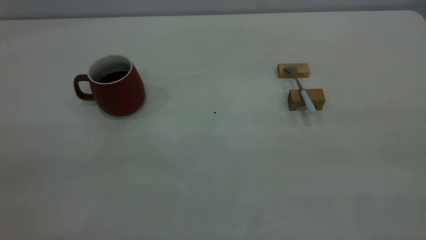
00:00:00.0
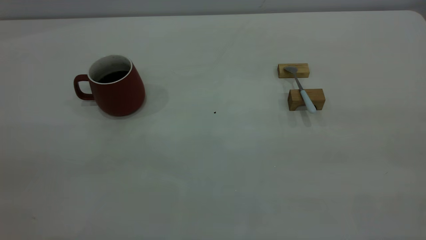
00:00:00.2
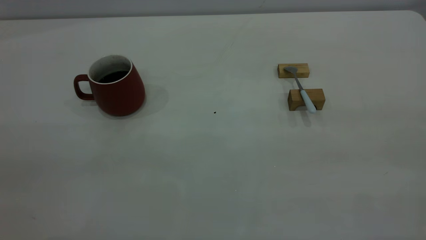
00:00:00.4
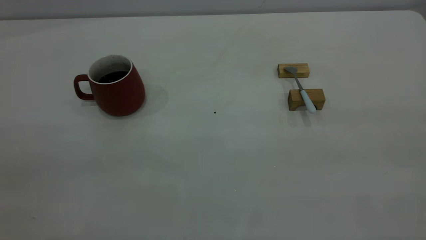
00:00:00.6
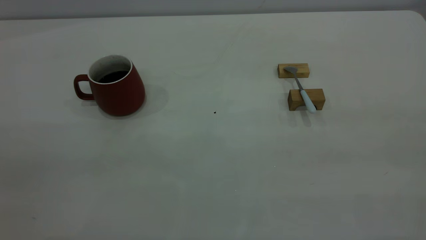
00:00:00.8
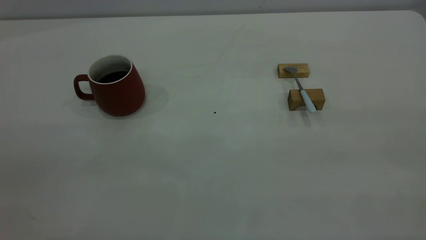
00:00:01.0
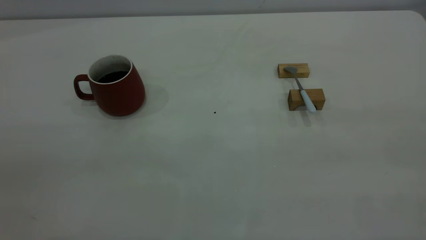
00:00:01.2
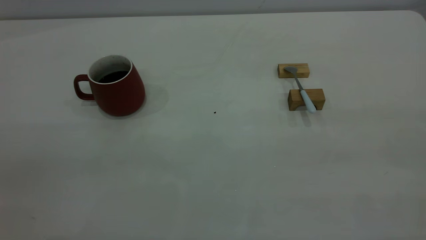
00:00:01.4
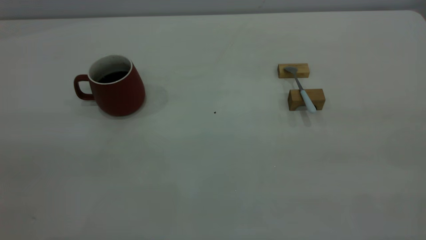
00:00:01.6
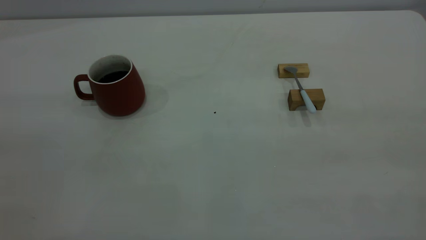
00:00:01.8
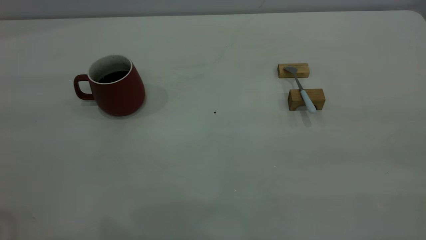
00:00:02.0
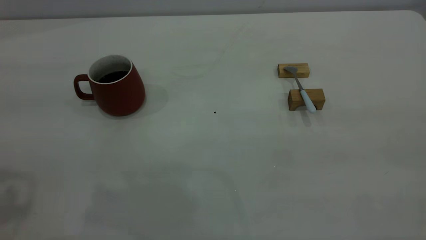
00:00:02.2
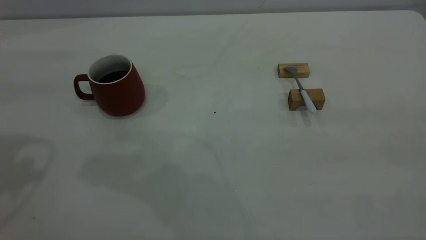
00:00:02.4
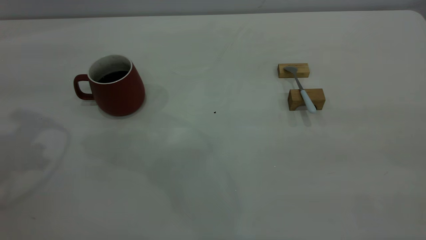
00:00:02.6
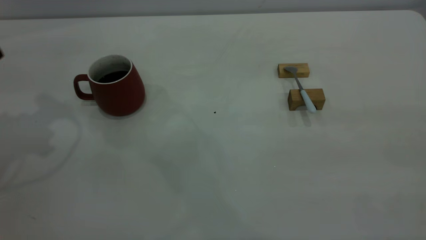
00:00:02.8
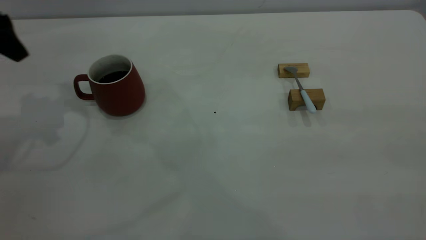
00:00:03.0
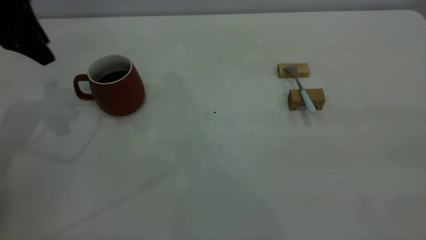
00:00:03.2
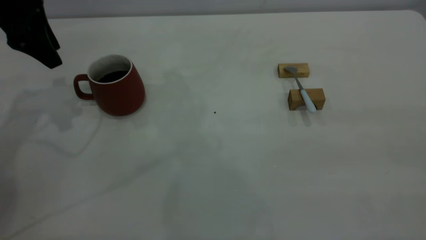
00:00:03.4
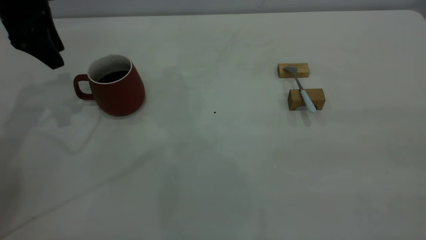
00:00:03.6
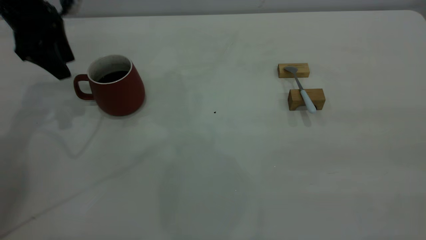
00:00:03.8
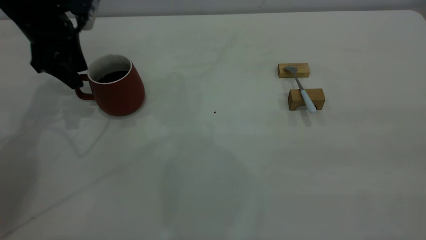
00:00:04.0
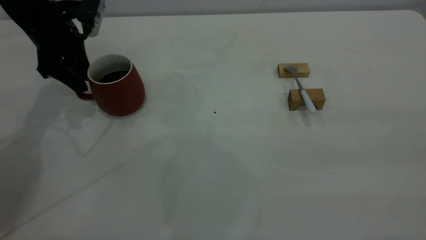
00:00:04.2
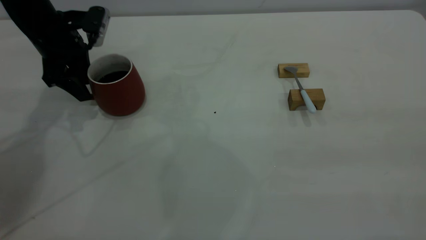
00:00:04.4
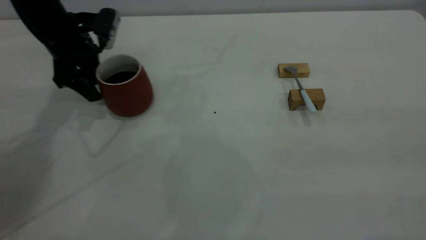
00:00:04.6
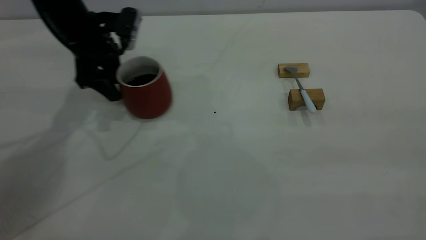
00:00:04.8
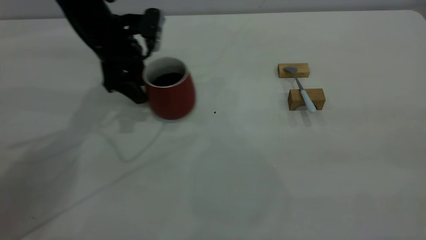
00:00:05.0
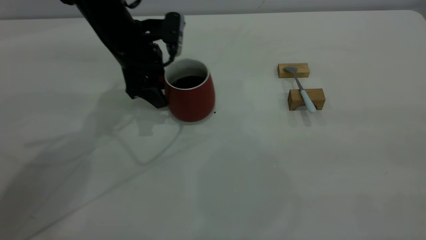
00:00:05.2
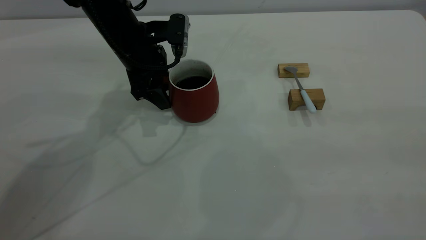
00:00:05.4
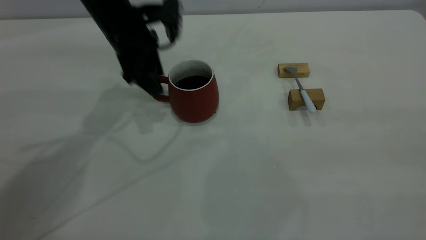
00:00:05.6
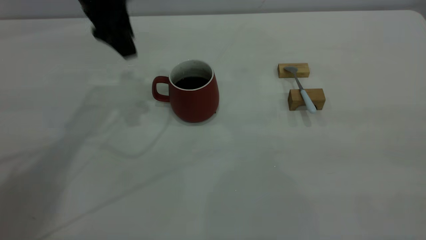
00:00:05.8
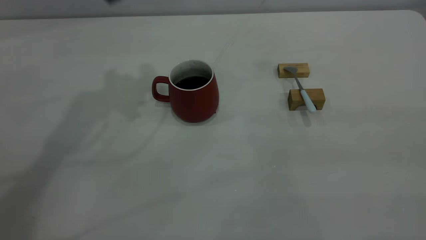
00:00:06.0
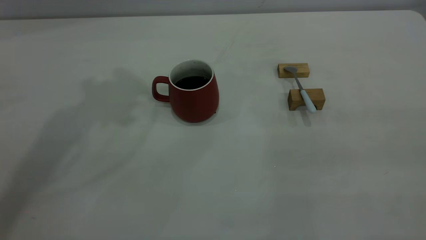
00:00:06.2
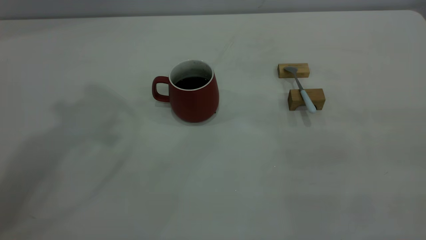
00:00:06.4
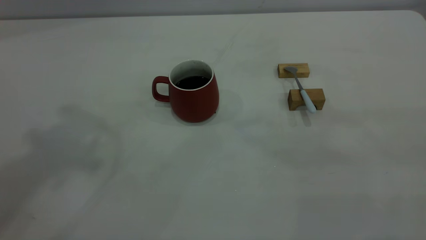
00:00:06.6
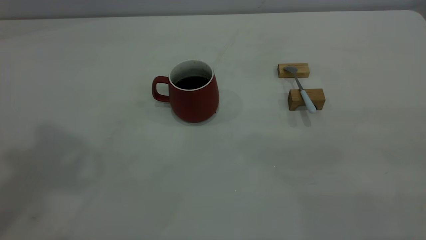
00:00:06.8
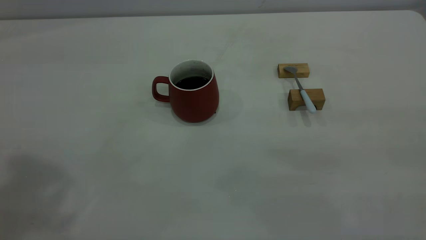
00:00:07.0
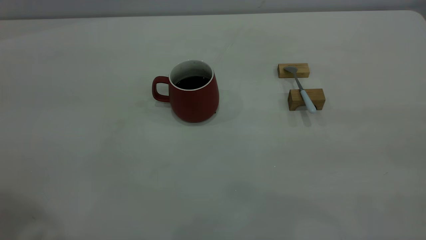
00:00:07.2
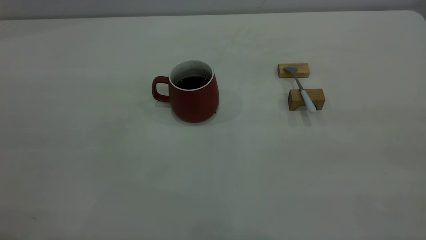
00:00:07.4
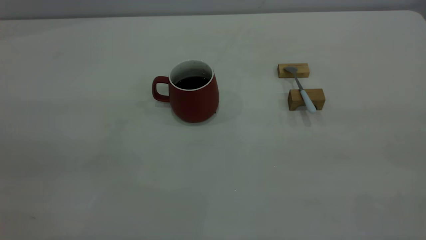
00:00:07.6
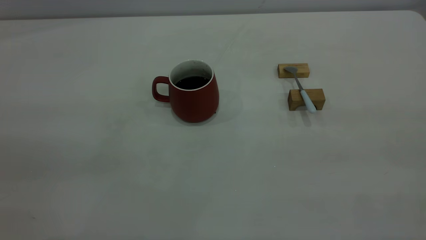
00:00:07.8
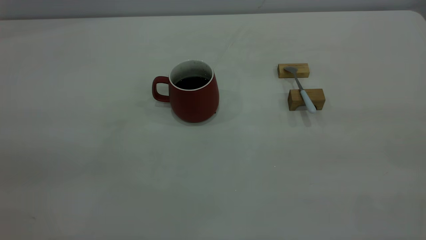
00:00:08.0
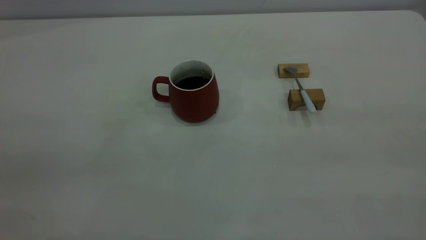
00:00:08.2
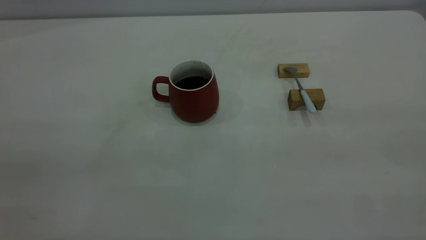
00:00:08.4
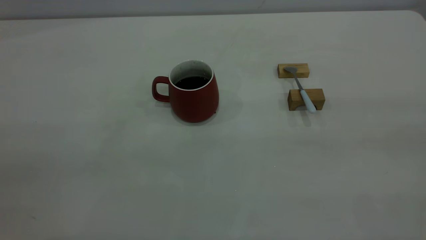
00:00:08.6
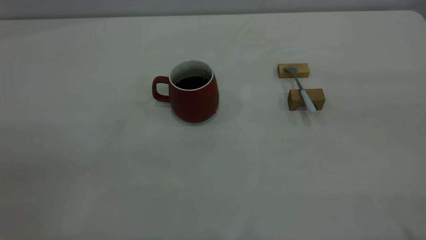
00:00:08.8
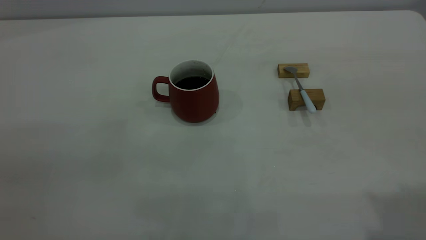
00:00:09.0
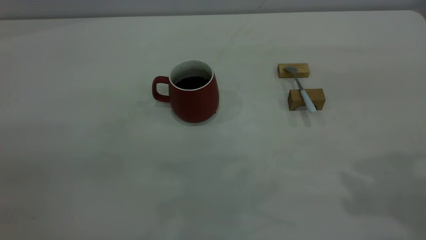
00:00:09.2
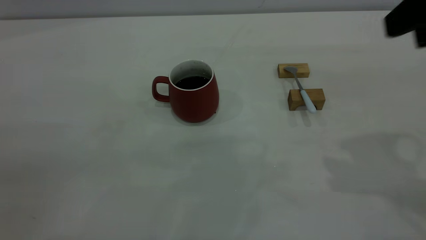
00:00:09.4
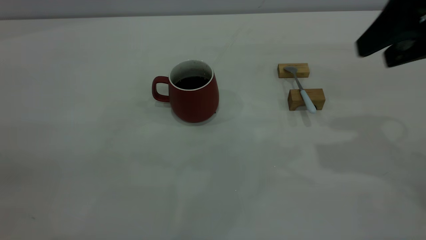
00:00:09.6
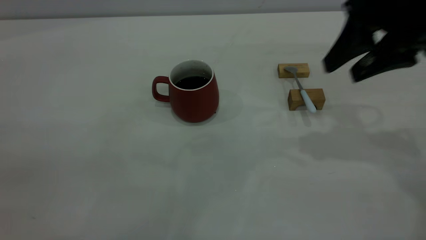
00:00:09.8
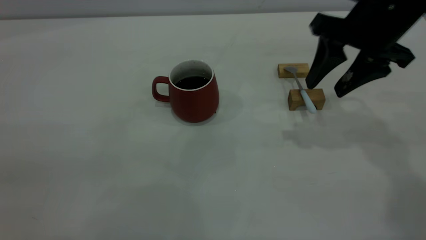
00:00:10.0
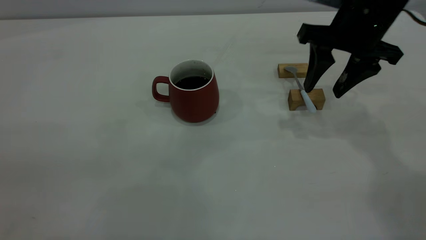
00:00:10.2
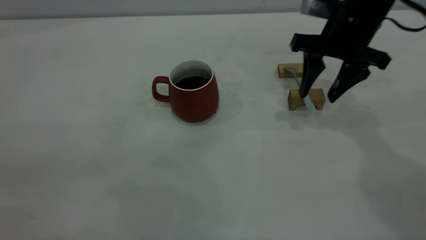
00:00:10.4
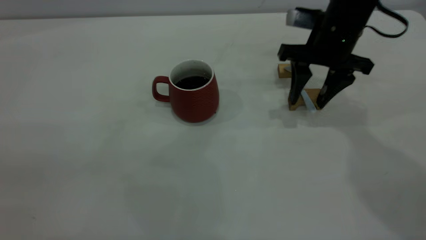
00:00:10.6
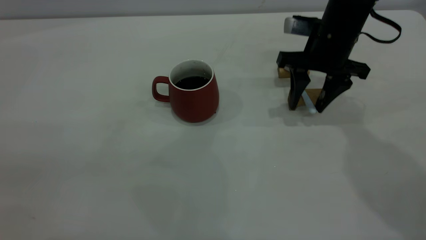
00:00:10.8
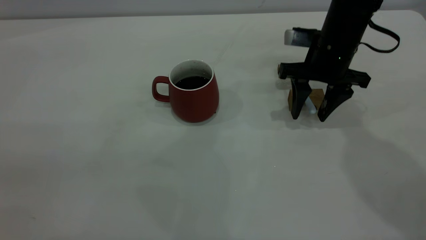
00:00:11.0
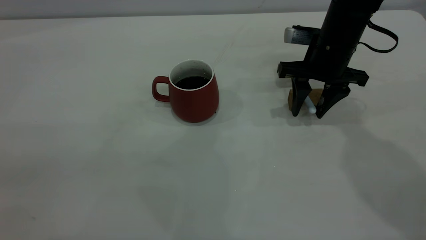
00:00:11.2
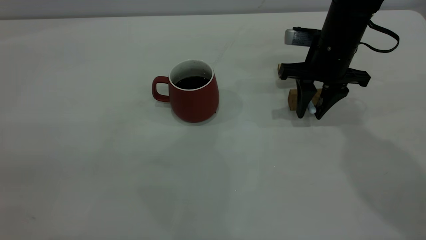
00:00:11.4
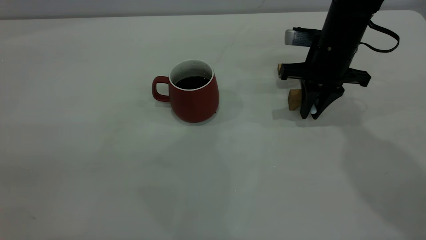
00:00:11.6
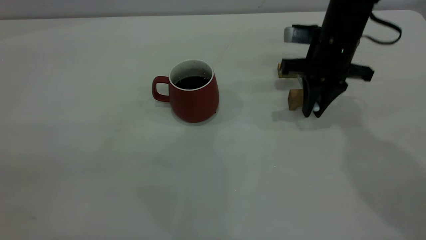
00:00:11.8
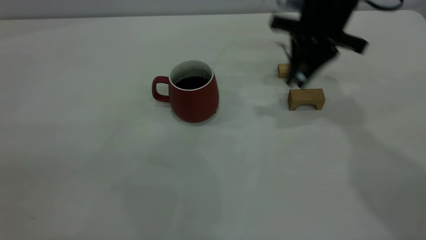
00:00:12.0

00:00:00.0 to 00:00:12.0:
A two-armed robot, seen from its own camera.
Step, 00:00:00.0 to 00:00:05.6: Move the cup with coffee to the center of view.
Step, 00:00:05.8 to 00:00:11.8: Pick up the spoon.
00:00:01.6 to 00:00:03.0: The left gripper heads forward, covering about 35 cm.
00:00:03.0 to 00:00:04.4: The left gripper travels downward and forward by approximately 10 cm.
00:00:04.4 to 00:00:06.0: The left gripper travels upward and to the right by about 20 cm.
00:00:09.0 to 00:00:10.4: The right gripper goes some 35 cm forward and downward.
00:00:10.4 to 00:00:12.0: The right gripper changes place by approximately 5 cm, and closes its fingers.

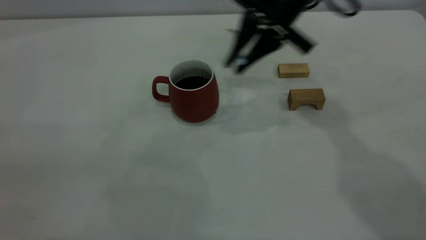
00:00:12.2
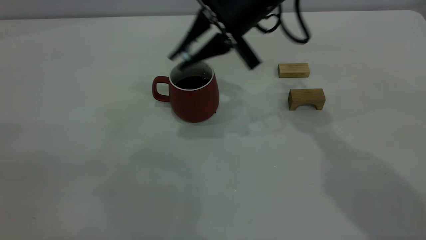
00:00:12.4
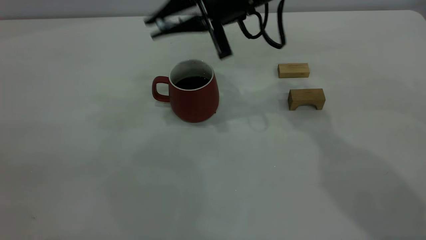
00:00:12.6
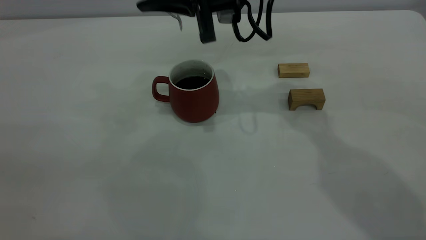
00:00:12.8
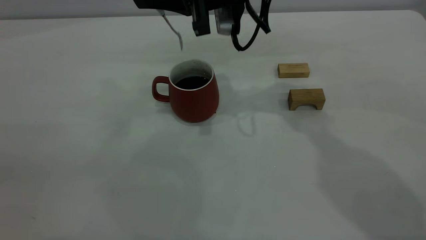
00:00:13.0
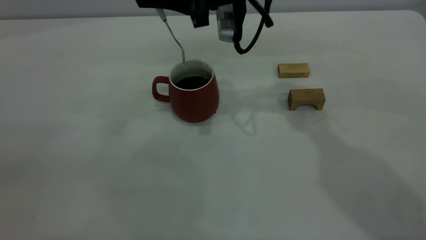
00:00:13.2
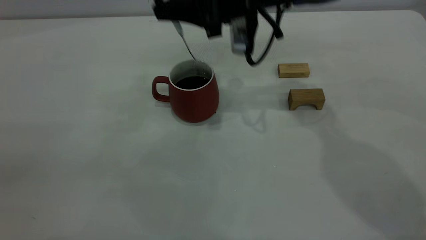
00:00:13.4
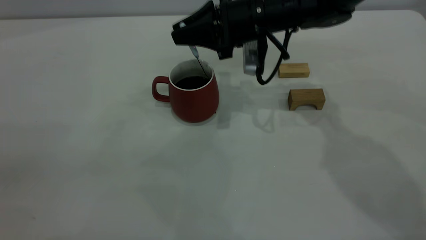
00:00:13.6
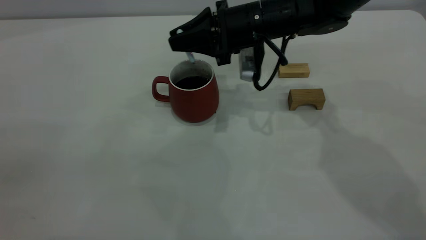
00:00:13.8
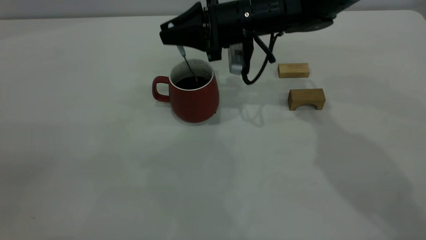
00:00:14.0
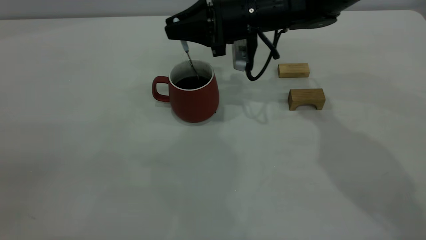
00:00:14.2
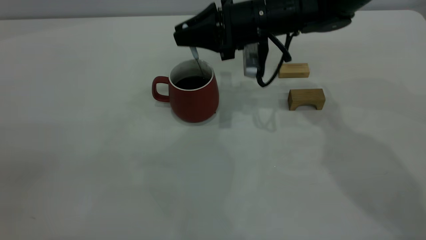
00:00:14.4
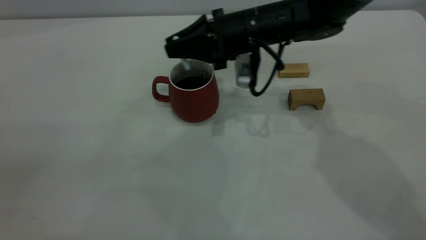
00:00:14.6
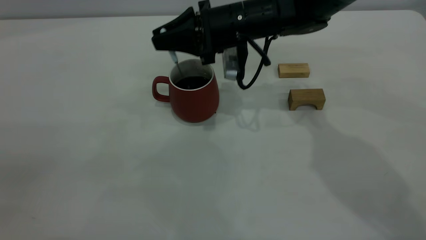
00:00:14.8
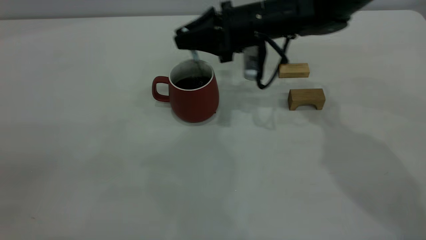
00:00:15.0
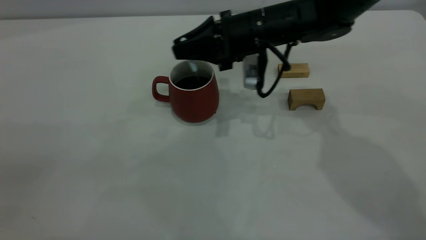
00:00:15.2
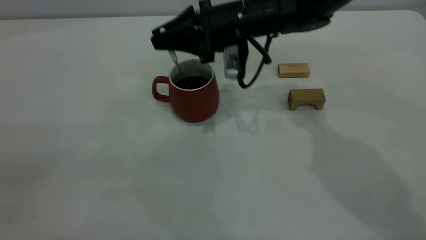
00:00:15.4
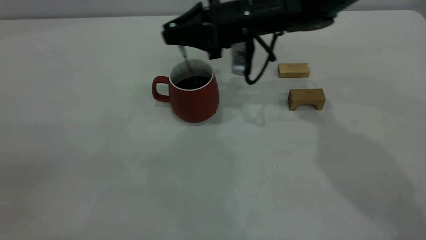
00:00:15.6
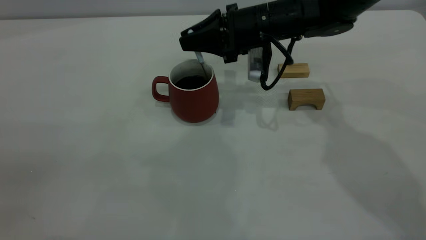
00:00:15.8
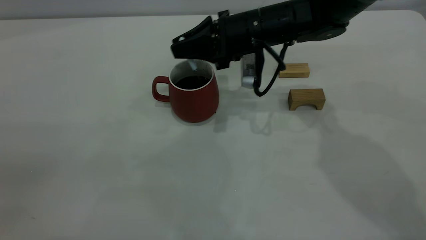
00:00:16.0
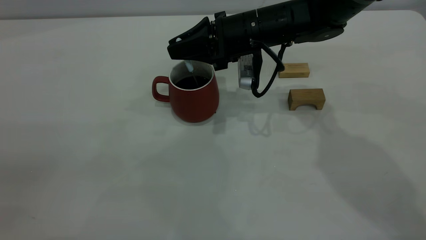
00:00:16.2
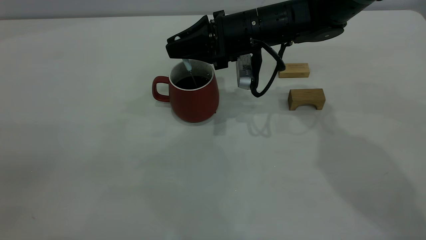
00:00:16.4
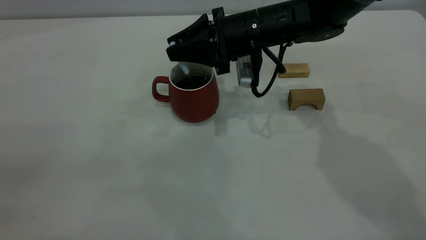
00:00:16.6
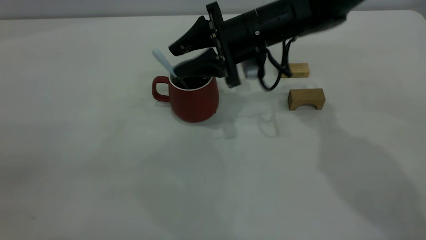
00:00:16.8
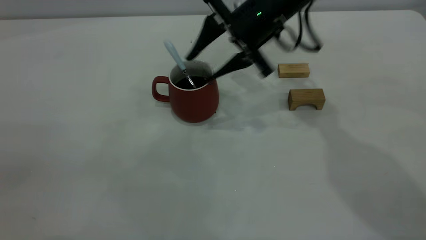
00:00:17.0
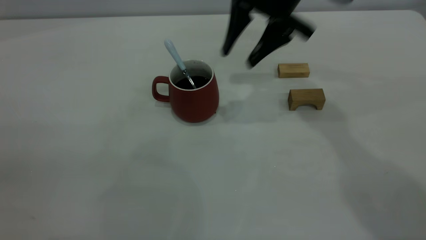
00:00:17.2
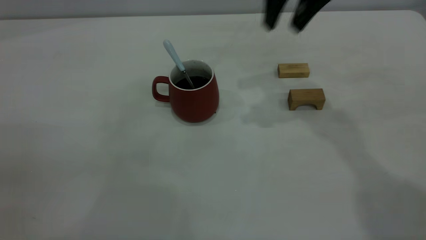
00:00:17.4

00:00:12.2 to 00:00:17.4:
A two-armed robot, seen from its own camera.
Step, 00:00:12.2 to 00:00:17.0: Stir the coffee in the cup.
00:00:12.2 to 00:00:14.0: The right gripper moves downward, approximately 5 cm.
00:00:14.0 to 00:00:15.6: There are only small adjustments of the grippers.
00:00:15.6 to 00:00:17.4: The right gripper moves upward, some 20 cm, and opens up.
